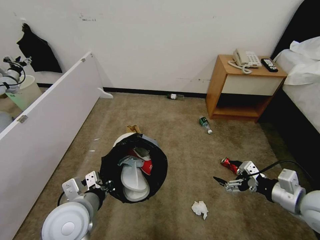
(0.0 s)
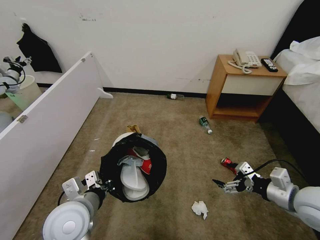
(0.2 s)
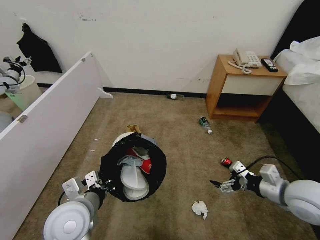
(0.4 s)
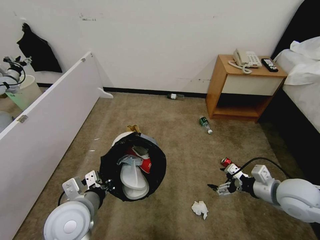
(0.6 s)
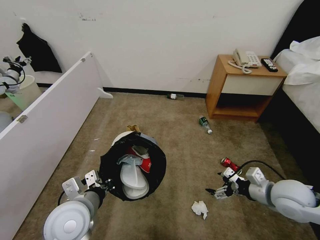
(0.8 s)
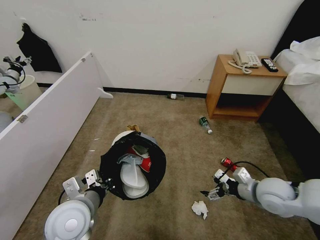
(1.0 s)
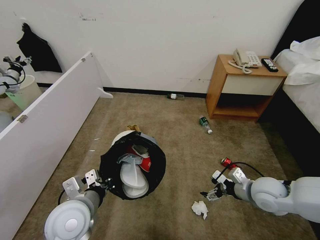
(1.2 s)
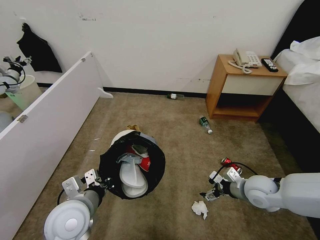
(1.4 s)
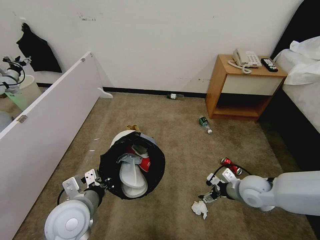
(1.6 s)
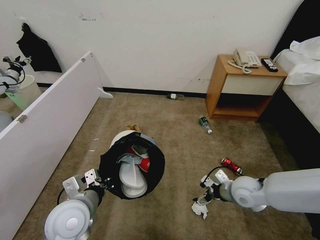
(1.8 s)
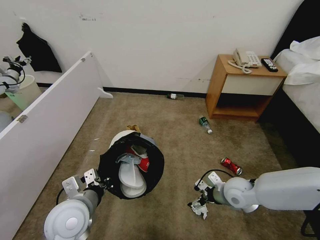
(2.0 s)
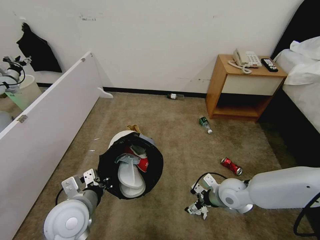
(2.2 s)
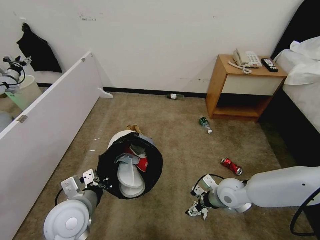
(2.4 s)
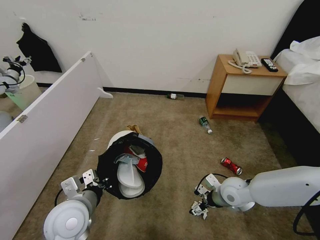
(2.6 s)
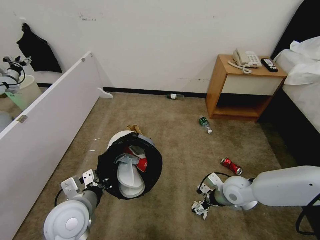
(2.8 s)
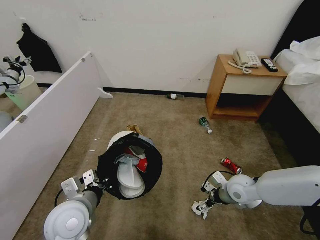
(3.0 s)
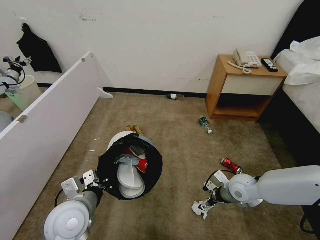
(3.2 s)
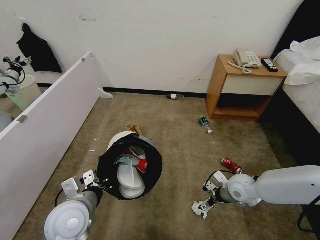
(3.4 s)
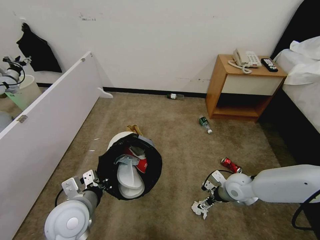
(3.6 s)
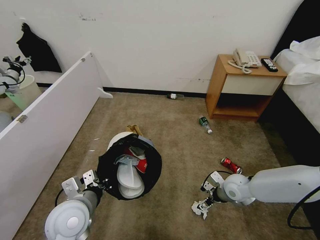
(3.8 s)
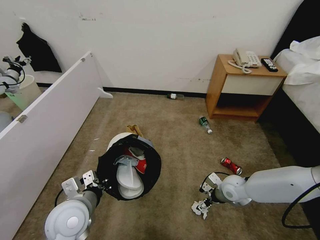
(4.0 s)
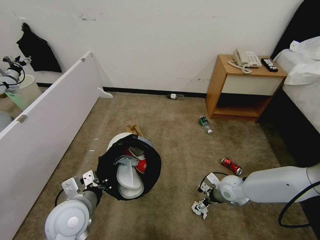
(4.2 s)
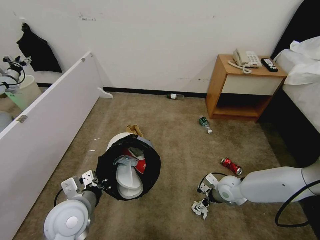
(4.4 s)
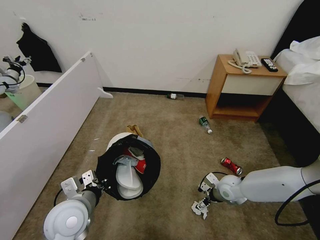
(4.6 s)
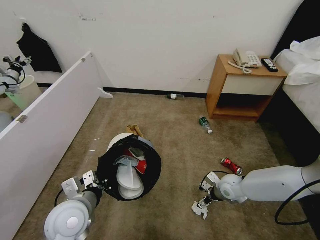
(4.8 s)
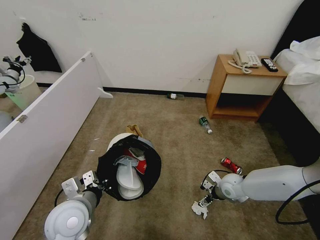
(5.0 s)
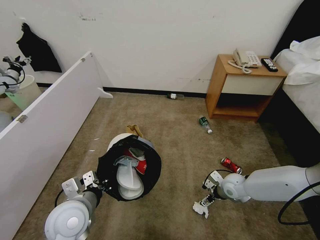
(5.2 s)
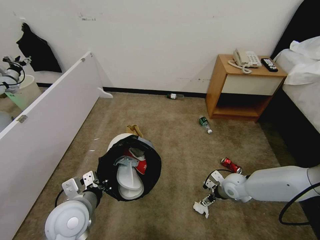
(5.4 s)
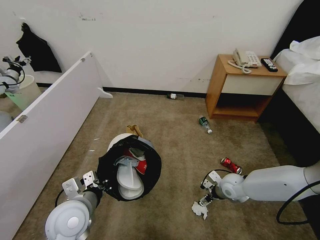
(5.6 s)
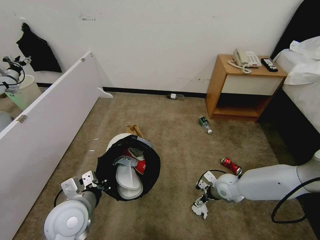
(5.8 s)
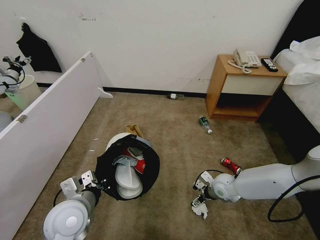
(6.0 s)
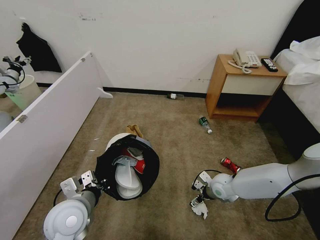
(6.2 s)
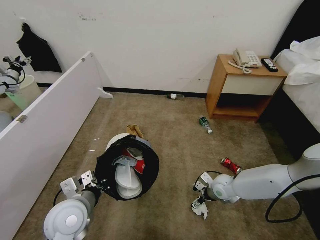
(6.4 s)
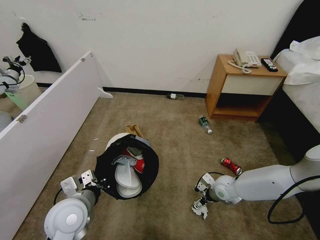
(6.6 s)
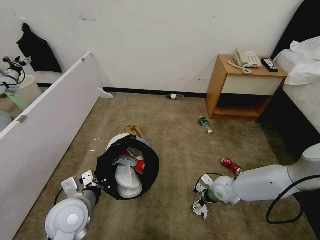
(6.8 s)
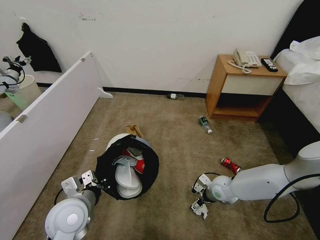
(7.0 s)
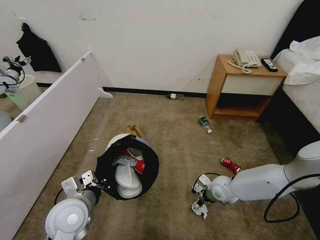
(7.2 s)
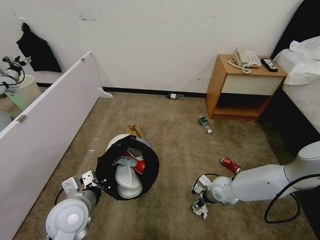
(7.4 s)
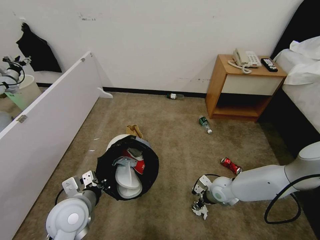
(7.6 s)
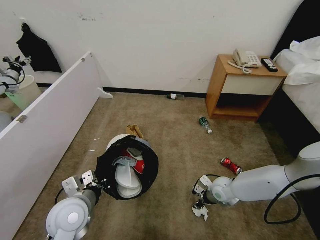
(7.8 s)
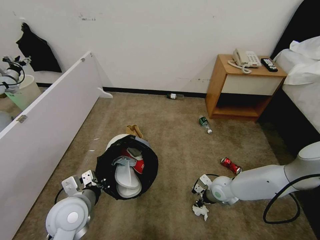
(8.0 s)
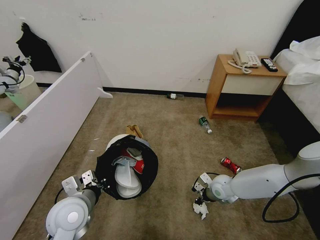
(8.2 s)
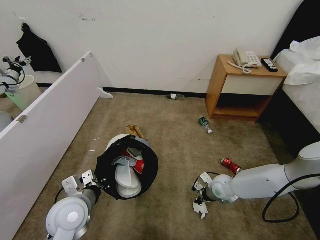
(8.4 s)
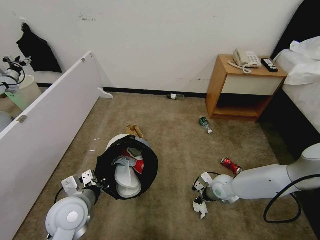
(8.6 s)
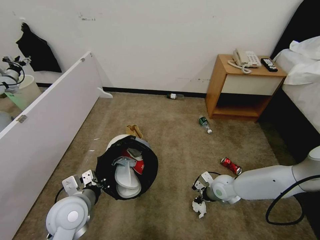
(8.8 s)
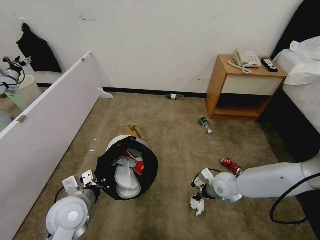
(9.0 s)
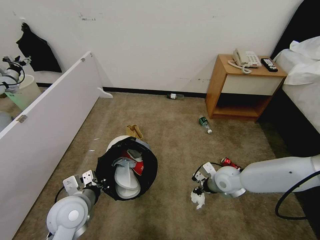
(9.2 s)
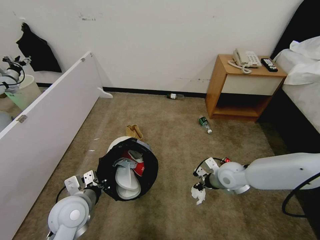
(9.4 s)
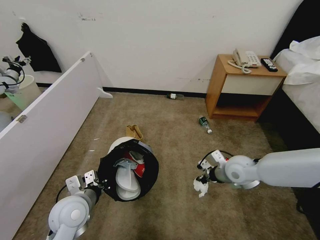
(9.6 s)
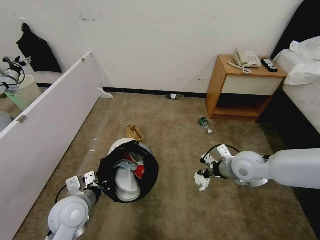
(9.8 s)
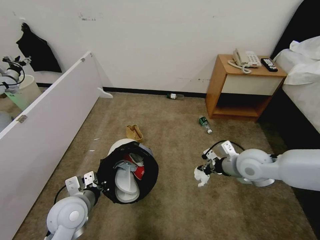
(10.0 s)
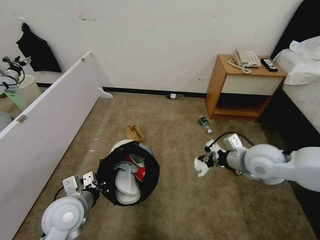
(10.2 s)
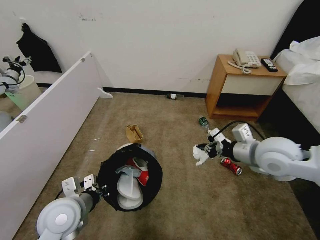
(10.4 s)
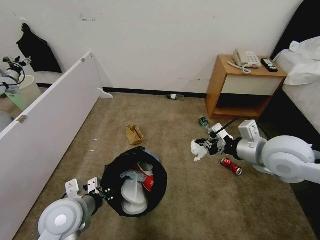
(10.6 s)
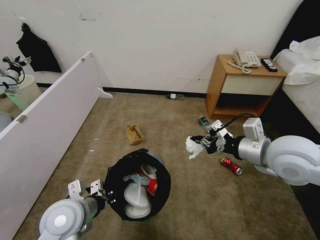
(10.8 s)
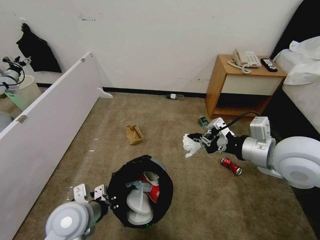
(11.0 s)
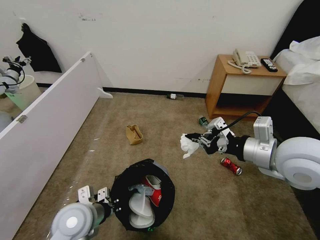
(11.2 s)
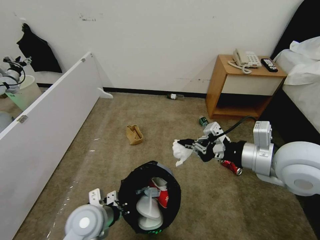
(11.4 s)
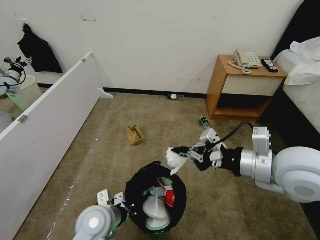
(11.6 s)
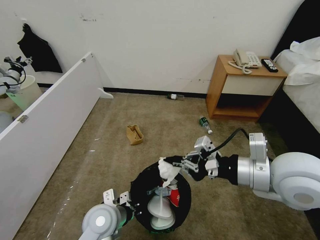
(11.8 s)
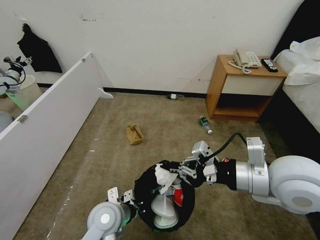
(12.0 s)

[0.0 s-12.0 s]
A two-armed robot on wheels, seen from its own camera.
Task of the whole recording: Pick up the trash bin and place the garbage on the floor into it.
0.0 to 1.6 s: The right gripper is displaced downward, forward and to the left by about 15 cm.
3.0 to 4.4 s: The right gripper goes roughly 5 cm downward.
4.4 to 6.0 s: The grippers make only small movements.
6.0 to 7.6 s: The right gripper closes up.
7.6 to 9.0 s: The right gripper closes.
9.0 to 10.4 s: The right gripper is displaced upward by roughly 25 cm.
10.4 to 12.0 s: The right gripper is displaced backward by roughly 10 cm. The left gripper goes roughly 10 cm to the right and downward.

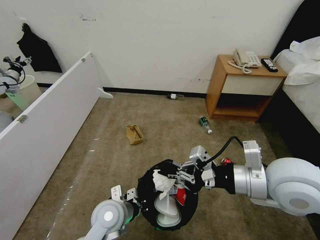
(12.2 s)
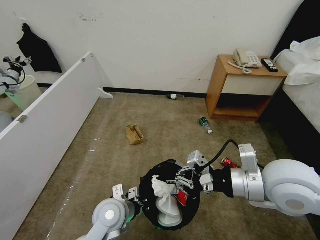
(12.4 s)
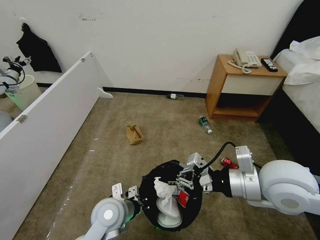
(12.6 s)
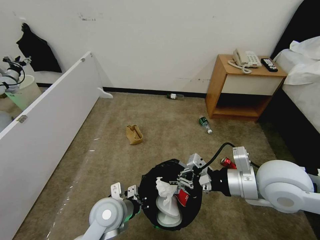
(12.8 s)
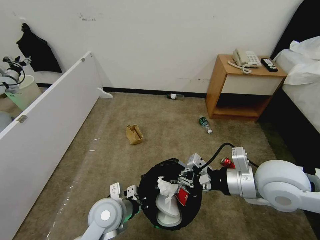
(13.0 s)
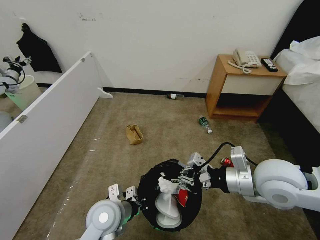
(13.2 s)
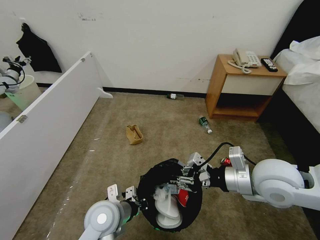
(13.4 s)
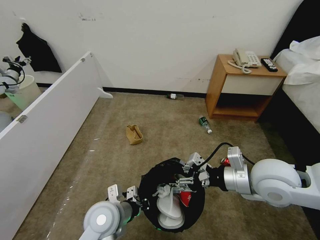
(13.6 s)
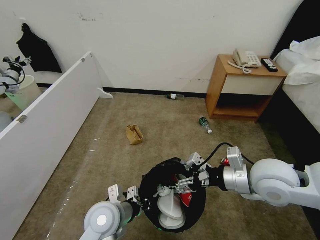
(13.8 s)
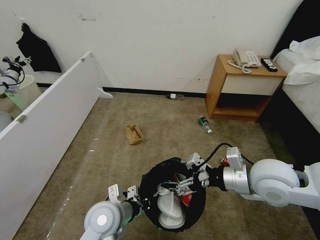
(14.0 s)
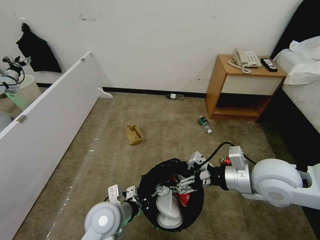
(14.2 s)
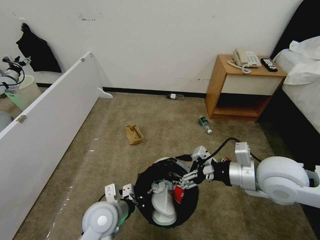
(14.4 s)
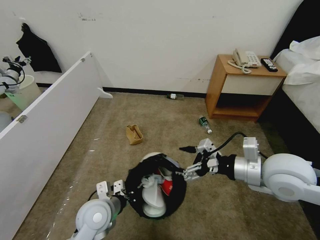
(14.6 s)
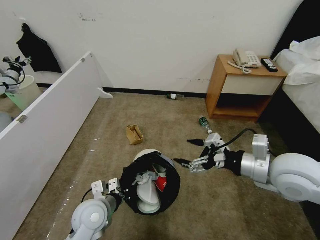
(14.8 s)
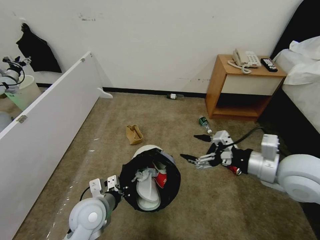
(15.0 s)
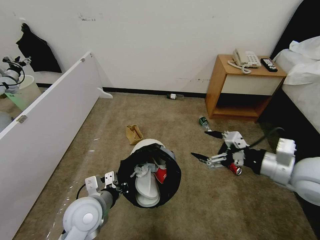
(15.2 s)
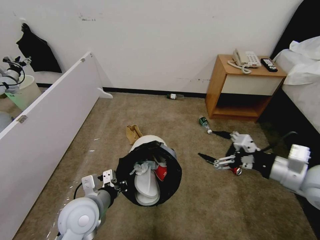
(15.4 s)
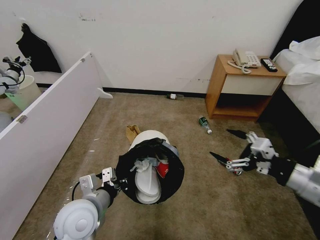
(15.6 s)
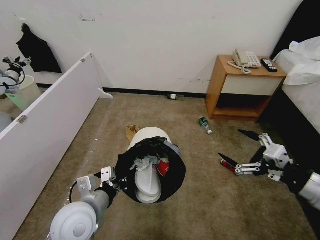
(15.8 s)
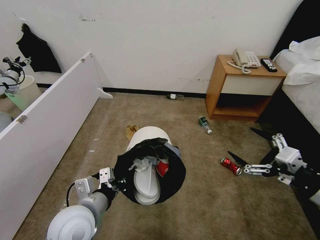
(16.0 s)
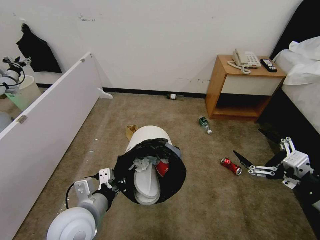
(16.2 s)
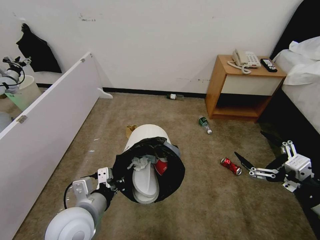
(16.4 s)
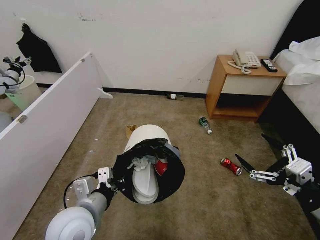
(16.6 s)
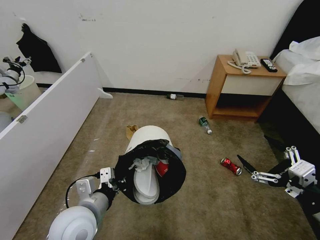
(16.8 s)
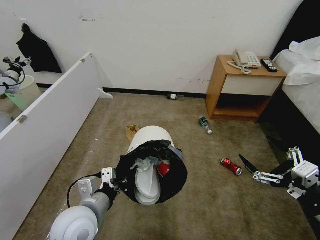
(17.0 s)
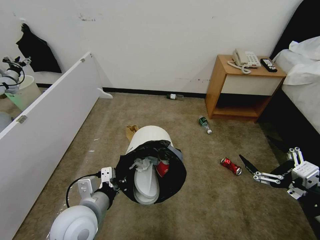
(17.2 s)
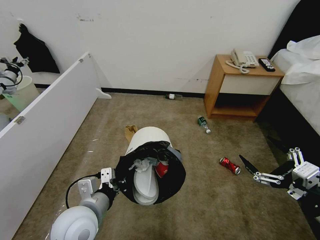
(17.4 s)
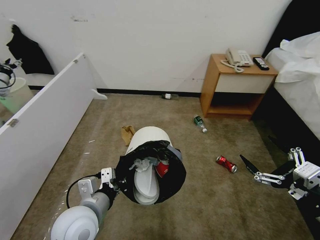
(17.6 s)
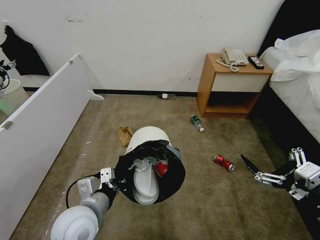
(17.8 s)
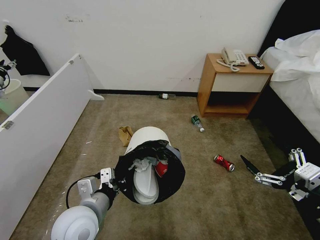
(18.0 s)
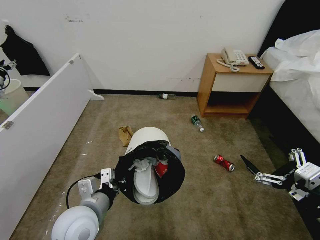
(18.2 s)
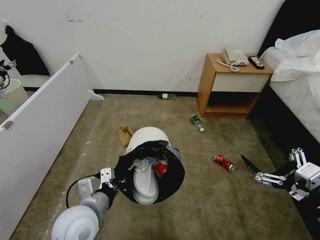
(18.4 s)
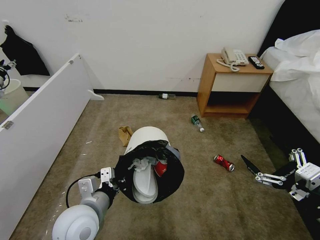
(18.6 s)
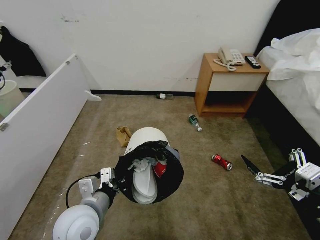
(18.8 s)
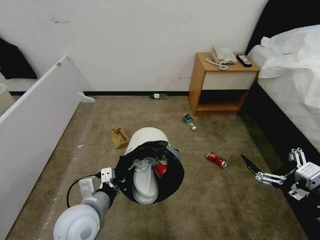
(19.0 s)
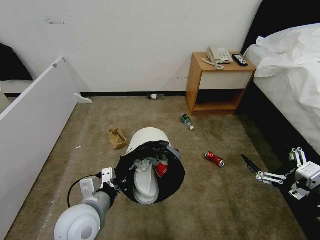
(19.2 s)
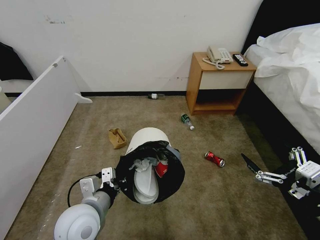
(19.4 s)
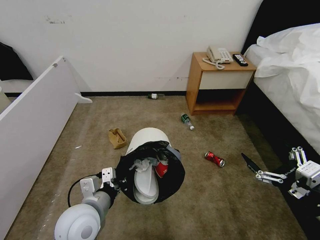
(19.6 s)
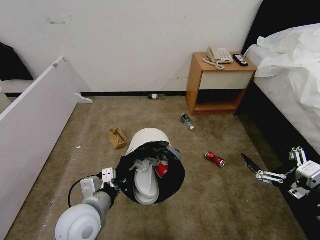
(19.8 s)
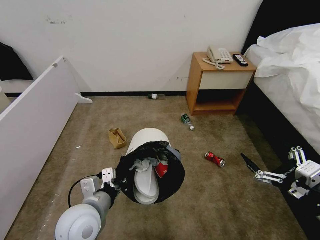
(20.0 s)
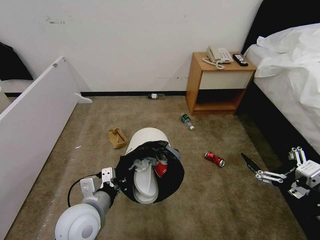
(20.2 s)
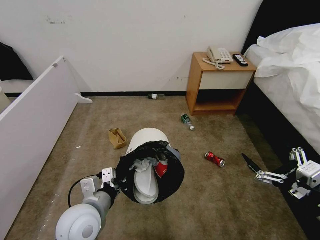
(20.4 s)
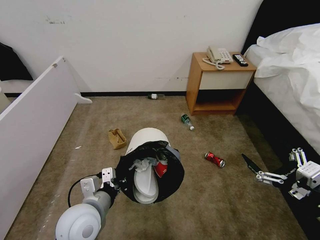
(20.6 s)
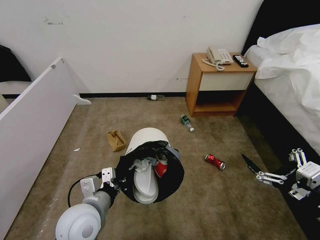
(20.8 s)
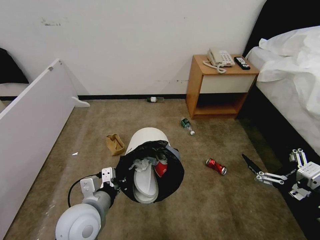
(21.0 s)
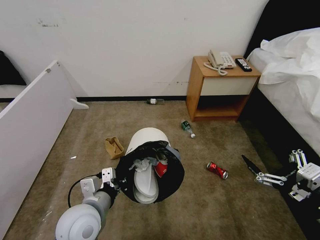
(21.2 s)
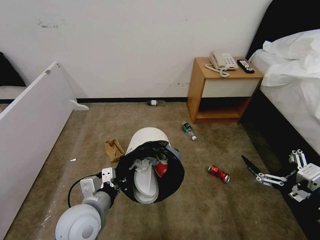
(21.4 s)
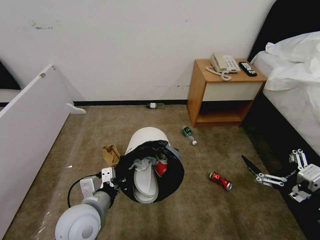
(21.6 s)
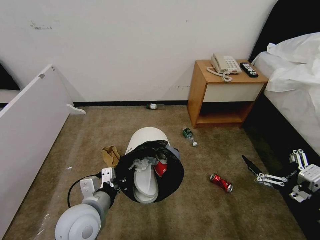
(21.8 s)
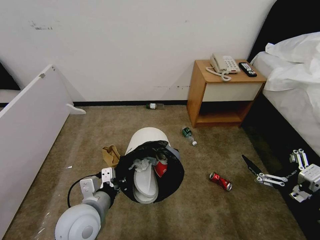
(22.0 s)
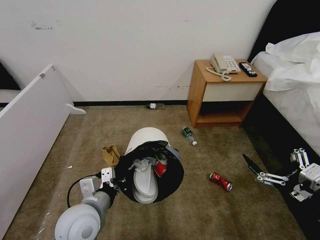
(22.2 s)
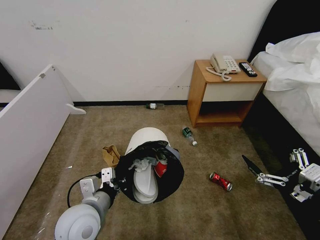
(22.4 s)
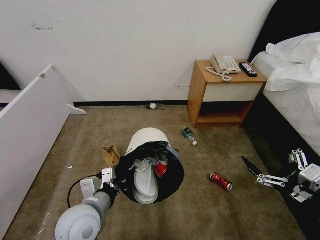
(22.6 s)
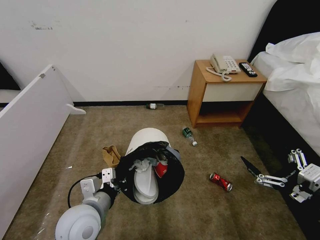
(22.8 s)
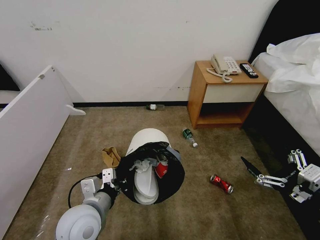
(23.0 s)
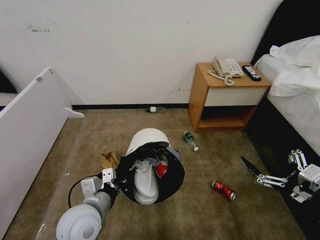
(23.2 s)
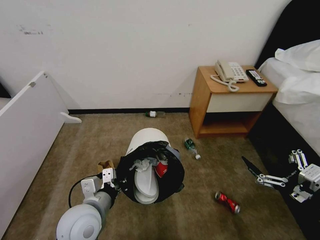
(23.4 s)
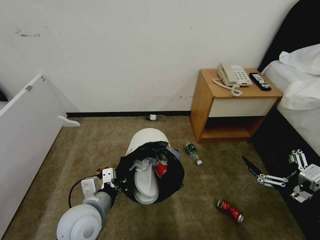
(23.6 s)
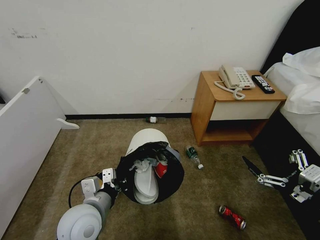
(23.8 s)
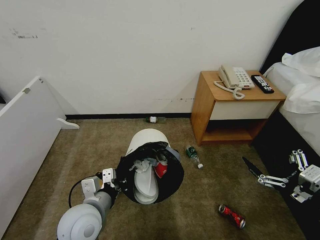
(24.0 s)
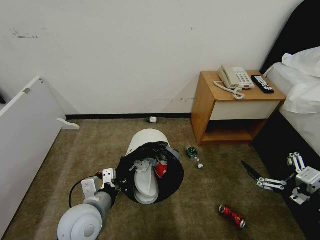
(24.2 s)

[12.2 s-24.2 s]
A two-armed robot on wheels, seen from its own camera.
Task of the whole recording: Pick up the trash bin and place the garbage on the floor into it.
12.2 to 13.8 s: The right gripper shifts approximately 5 cm downward, and opens.
13.8 to 15.2 s: The right gripper travels to the right by some 10 cm. Meanwhile the left gripper moves approximately 5 cm.
15.2 to 16.6 s: The left gripper ends up approximately 5 cm from where it was. The right gripper heads backward and to the right, covering roughly 15 cm.
19.8 to 22.6 s: The two grippers keep their place.
